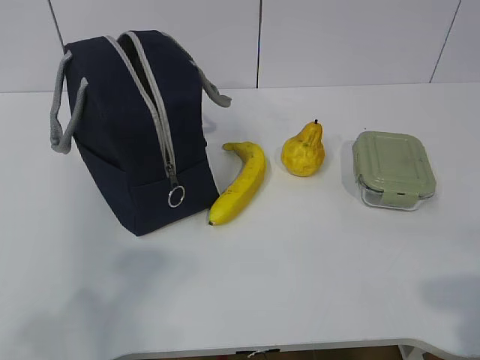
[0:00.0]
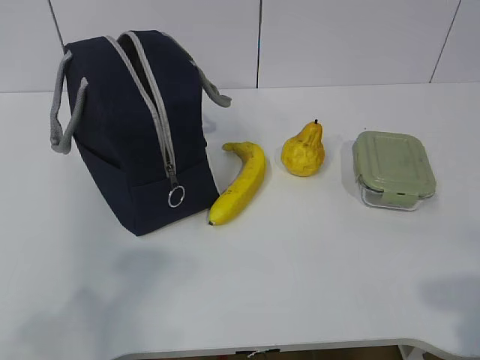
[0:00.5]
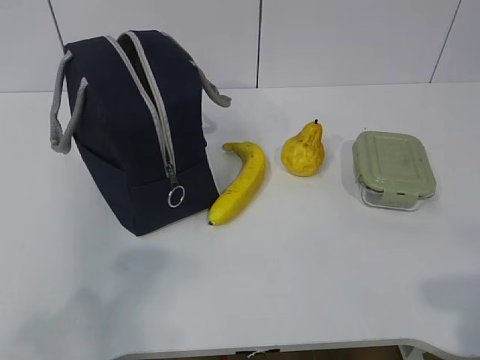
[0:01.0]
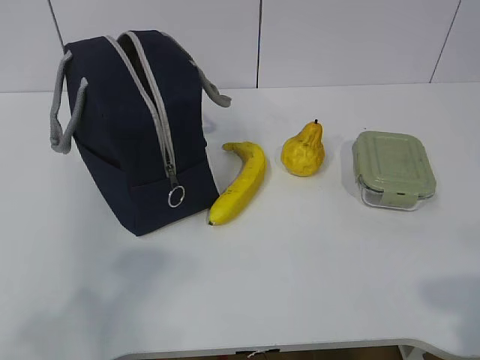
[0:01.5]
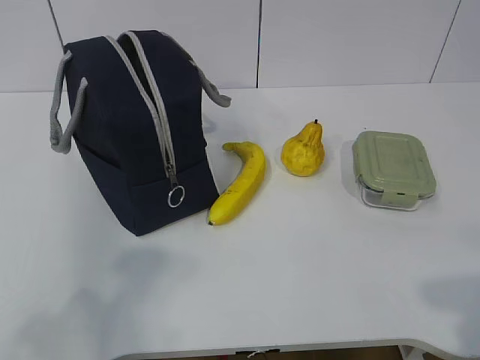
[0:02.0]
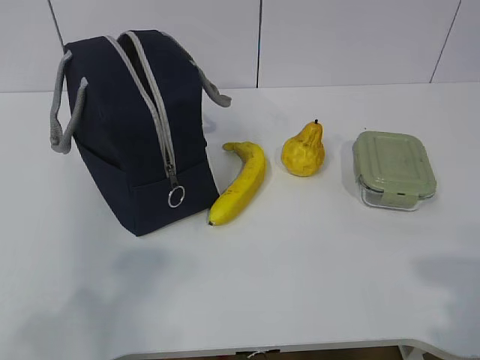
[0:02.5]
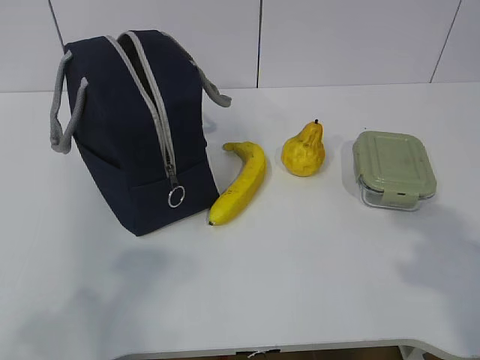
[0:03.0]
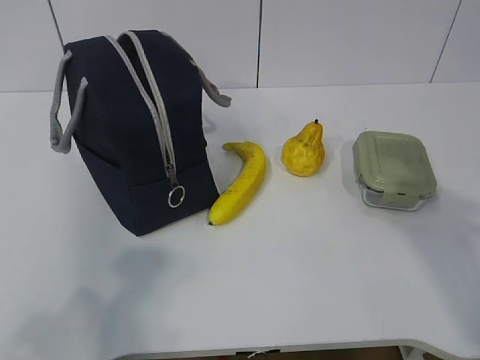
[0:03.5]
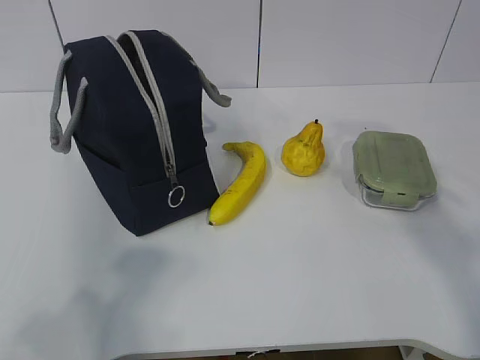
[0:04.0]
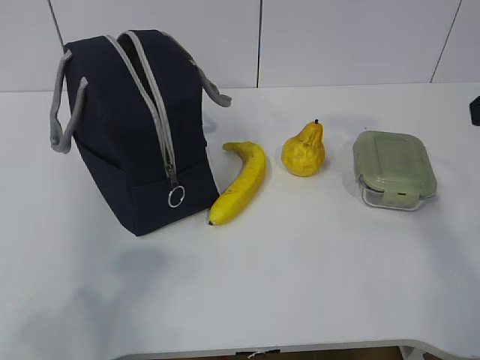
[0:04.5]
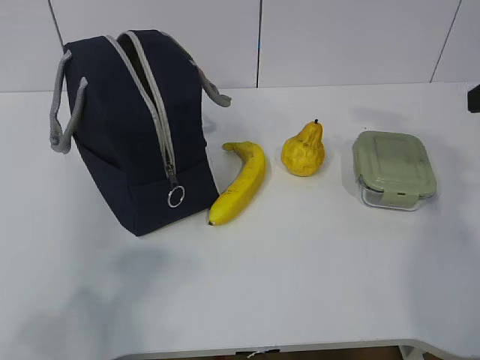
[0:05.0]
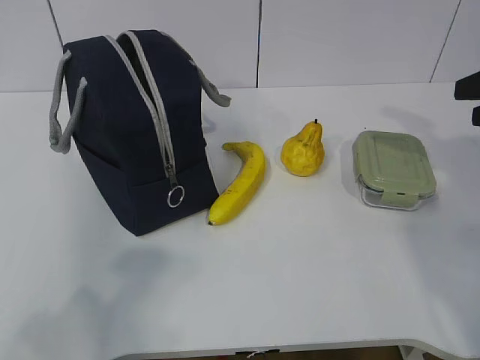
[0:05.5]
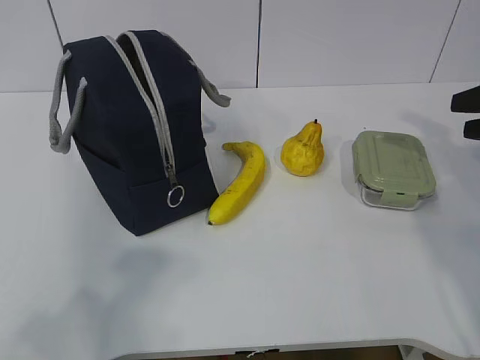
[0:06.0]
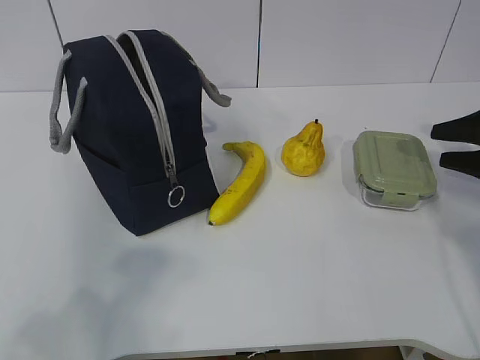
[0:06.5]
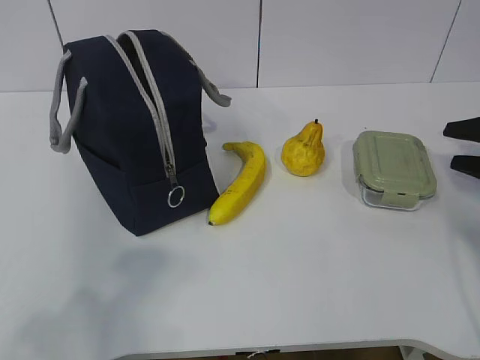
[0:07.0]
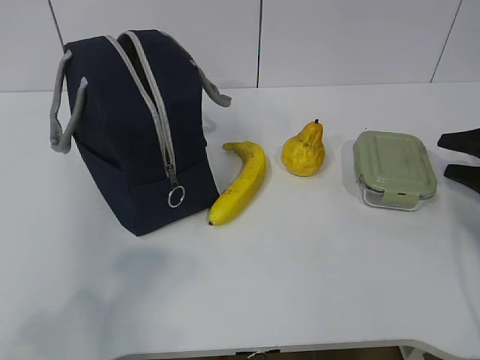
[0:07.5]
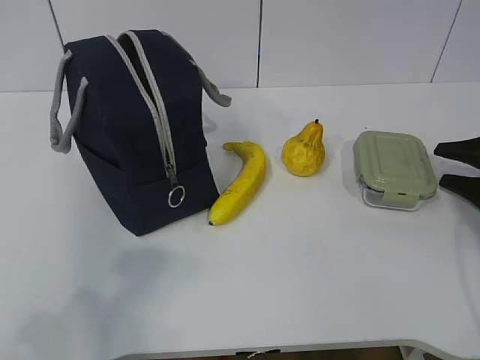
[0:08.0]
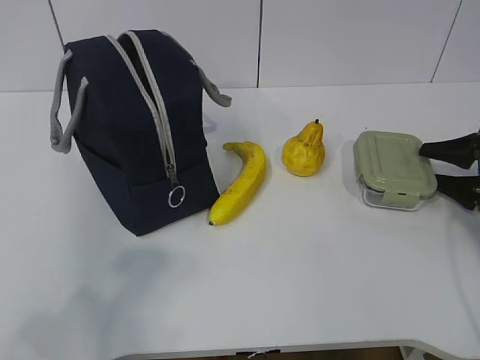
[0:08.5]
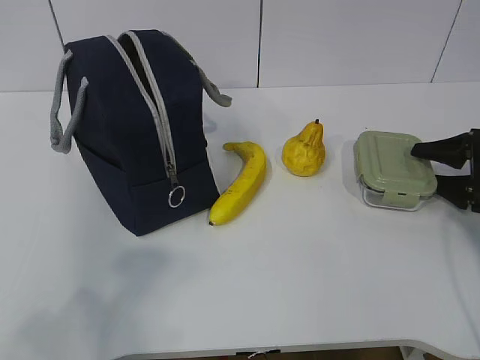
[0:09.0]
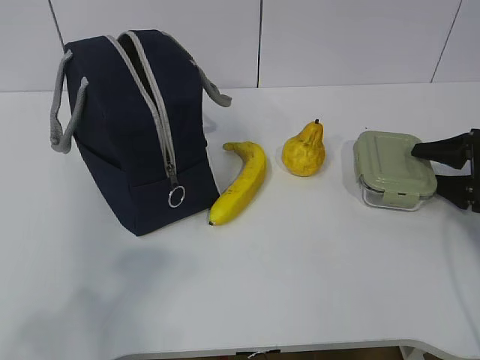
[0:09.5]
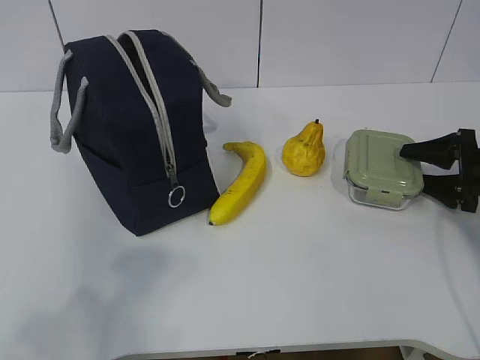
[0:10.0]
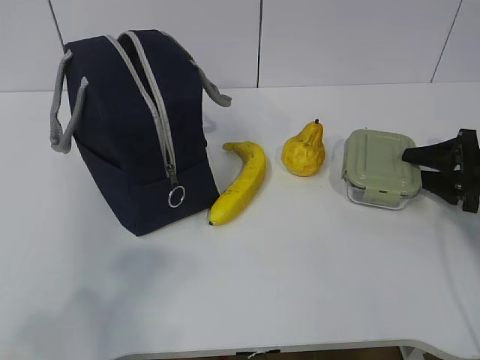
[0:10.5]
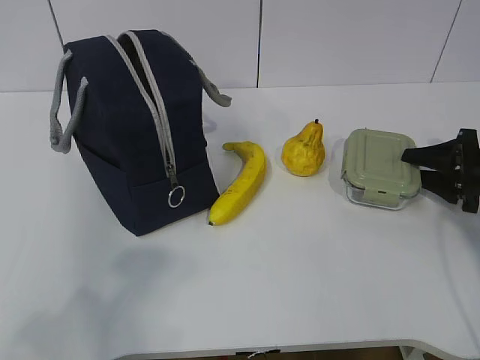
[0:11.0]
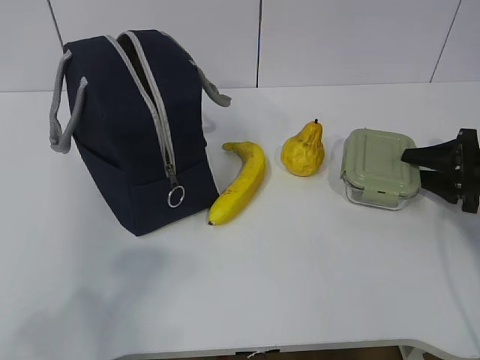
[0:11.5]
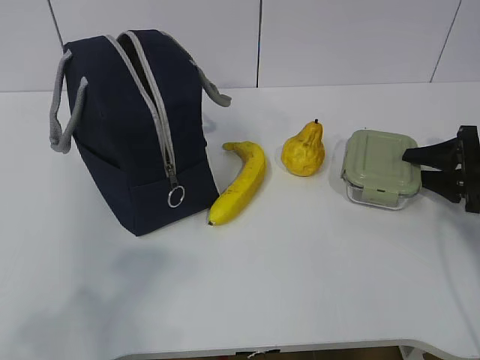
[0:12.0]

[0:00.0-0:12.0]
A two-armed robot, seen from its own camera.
Step, 0:00.0 to 0:09.5: Grab the lunch box with your right hand.
0:02.0 to 0:04.0: The right gripper heads forward and upward, covering approximately 20 cm.
0:04.0 to 0:06.0: The right gripper moves forward, downward and to the right, about 25 cm.
0:06.0 to 0:08.0: The right gripper moves downward, approximately 15 cm.
0:08.0 to 0:10.0: The grippers move only a little.
0:10.0 to 0:12.0: The right gripper closes.

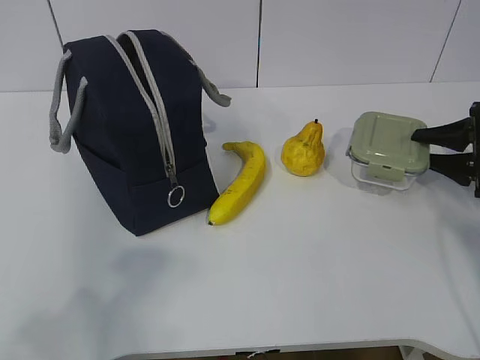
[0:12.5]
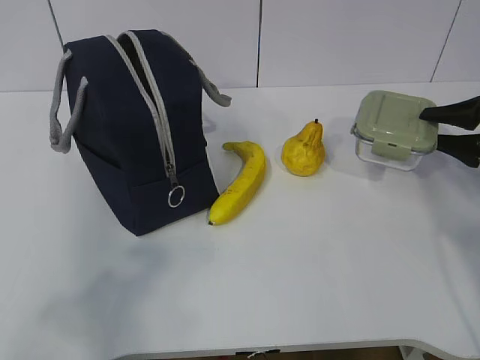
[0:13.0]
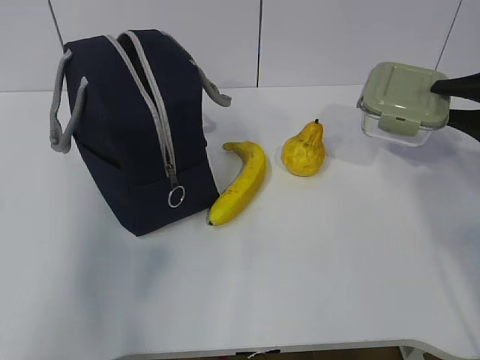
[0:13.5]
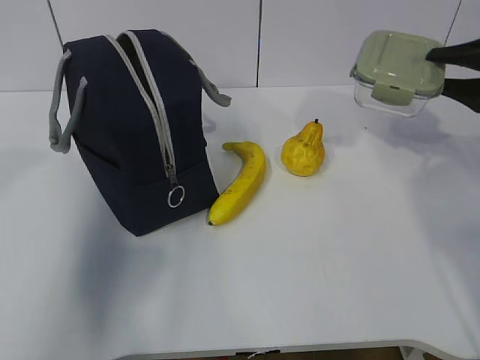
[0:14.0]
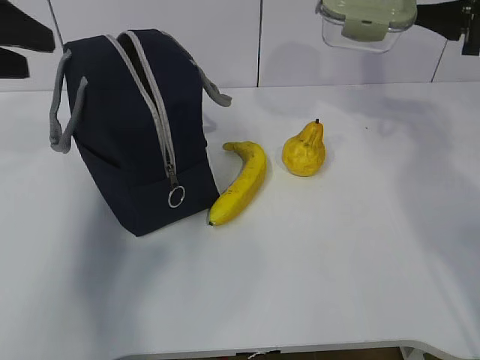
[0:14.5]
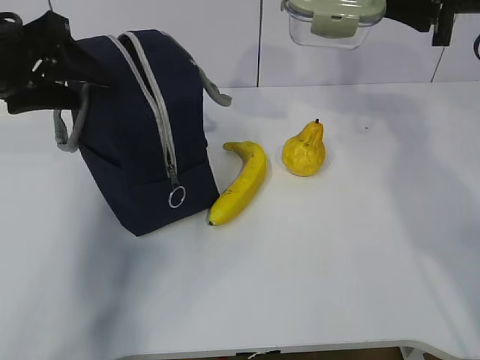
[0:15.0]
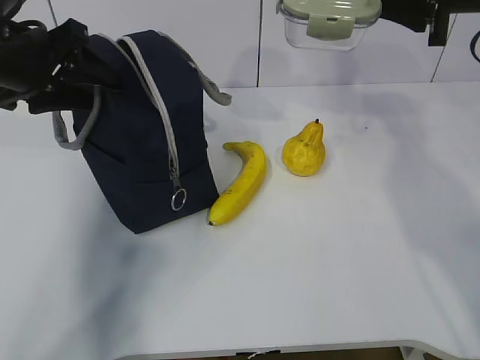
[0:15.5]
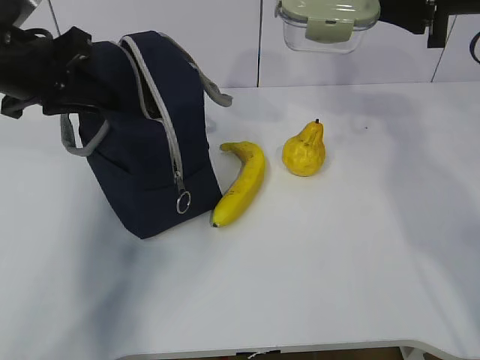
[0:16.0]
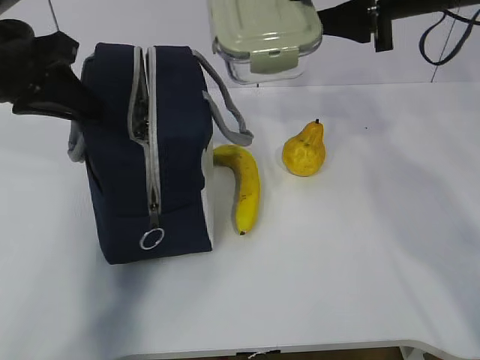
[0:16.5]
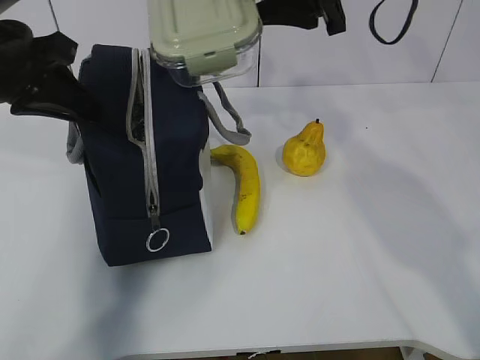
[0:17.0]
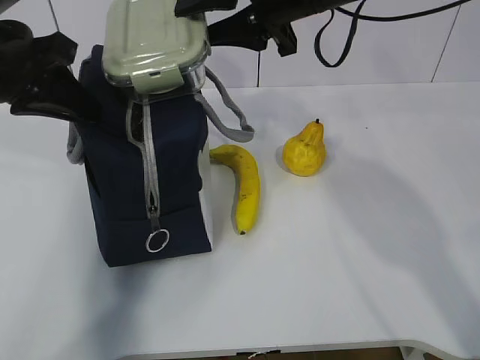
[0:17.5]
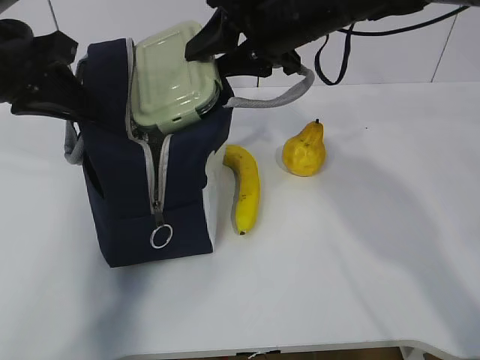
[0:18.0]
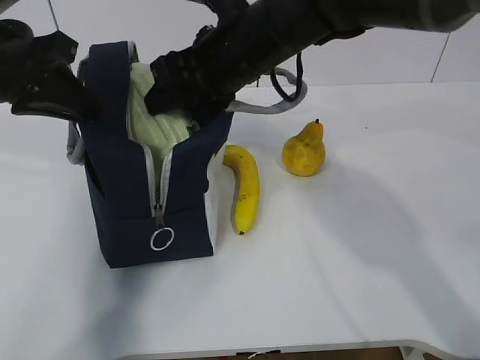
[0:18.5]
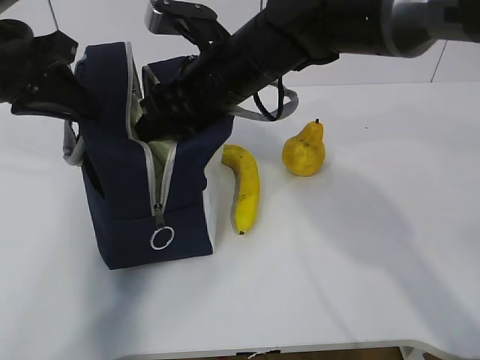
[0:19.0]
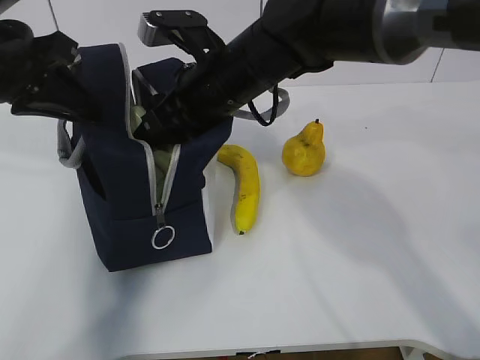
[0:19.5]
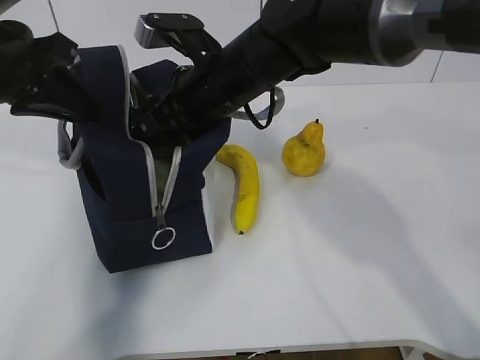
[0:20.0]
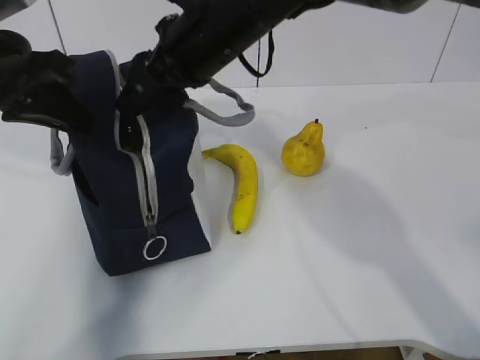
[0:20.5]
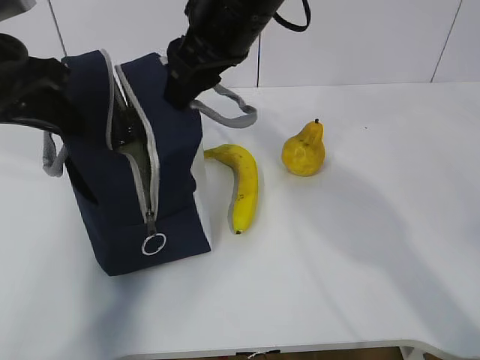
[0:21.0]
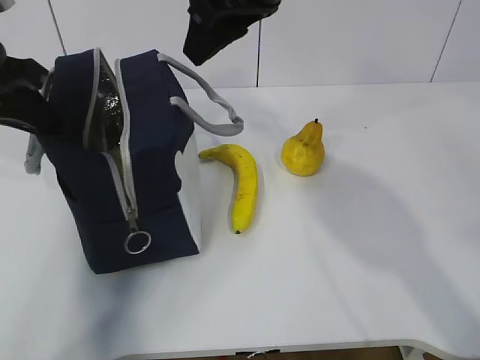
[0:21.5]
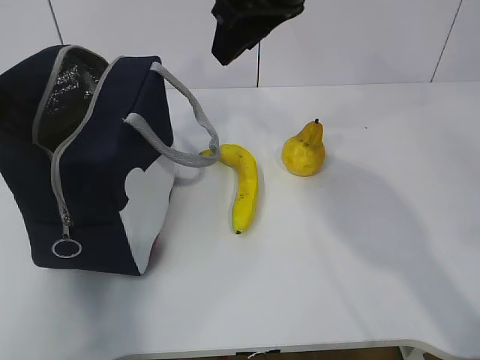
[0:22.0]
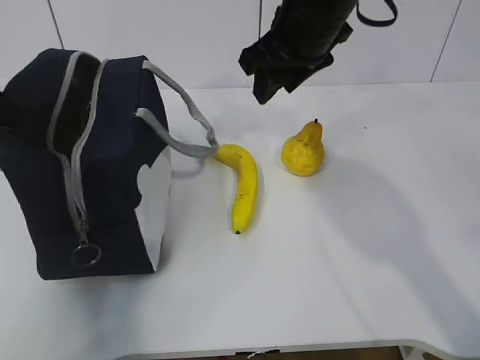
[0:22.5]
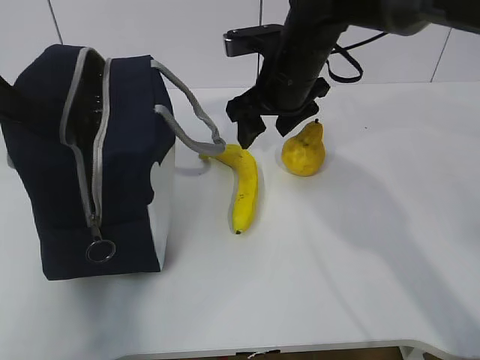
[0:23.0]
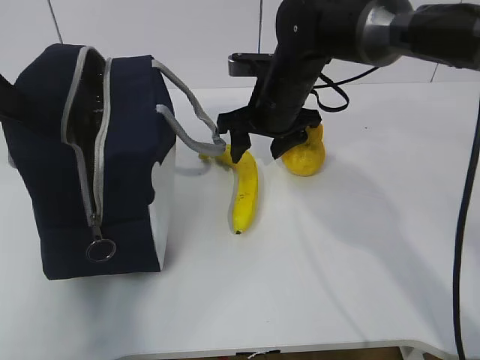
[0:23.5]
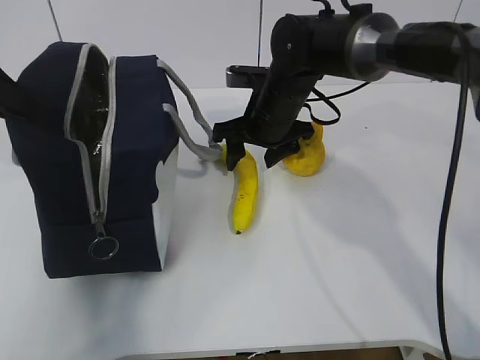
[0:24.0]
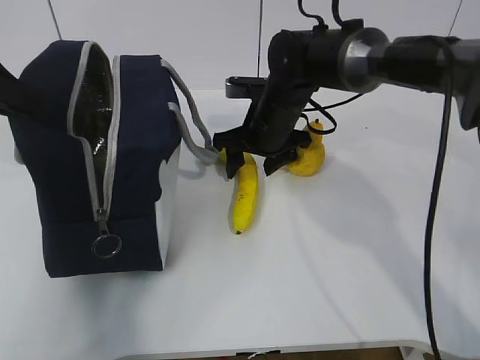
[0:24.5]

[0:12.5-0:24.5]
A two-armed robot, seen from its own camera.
Step, 0:14.5 to 0:16.5: Place it into the bag with your right hand.
Step, 0:17.0 to 0:21.0: Grab the banana with your right hand.
0:12.5 to 0:14.5: The left gripper moves forward, about 30 cm, while the right gripper is displaced upward by about 20 cm.
0:14.5 to 0:16.5: The right gripper goes roughly 10 cm to the left. Meanwhile the left gripper closes.
0:16.5 to 0:18.5: The right gripper moves to the left, approximately 15 cm.
0:20.5 to 0:22.5: The right gripper travels to the right by about 10 cm; the left gripper goes about 5 cm to the left.
0:22.5 to 0:24.5: The right gripper moves downward, roughly 15 cm.

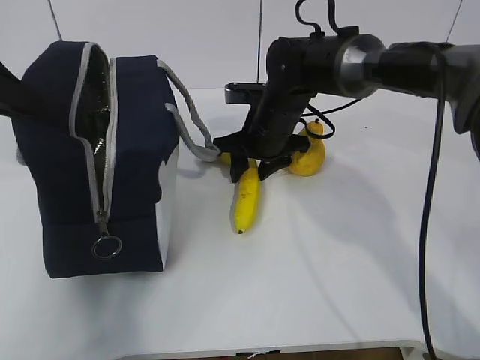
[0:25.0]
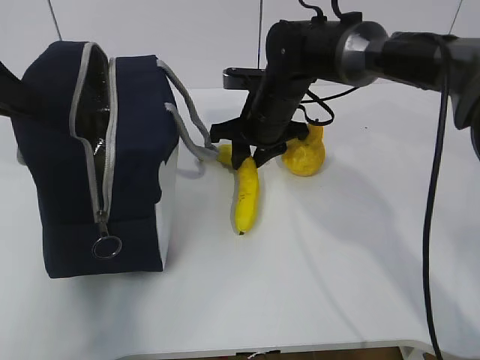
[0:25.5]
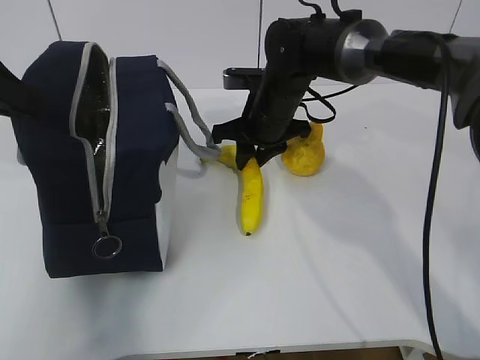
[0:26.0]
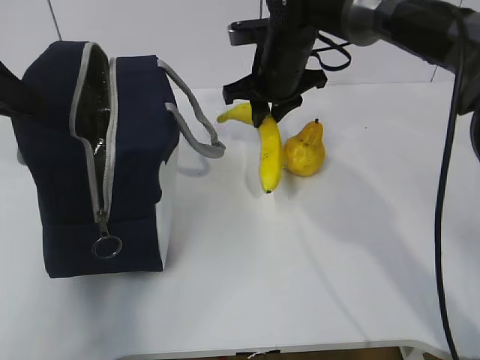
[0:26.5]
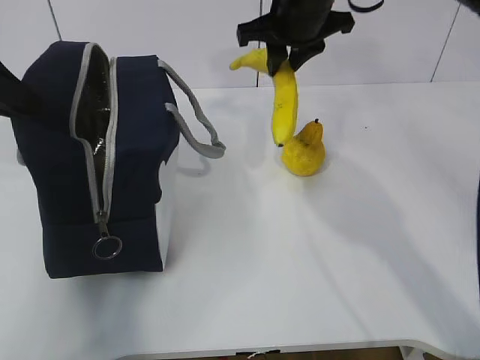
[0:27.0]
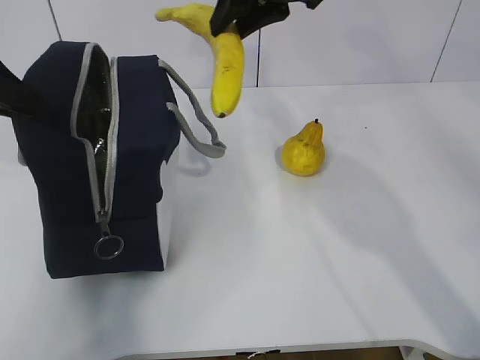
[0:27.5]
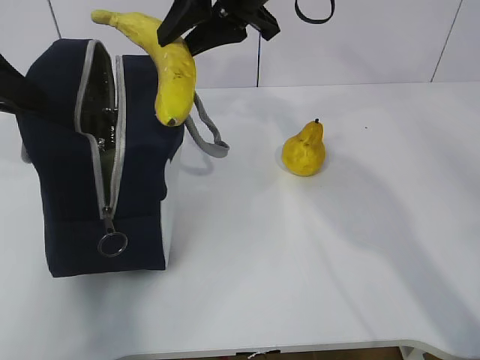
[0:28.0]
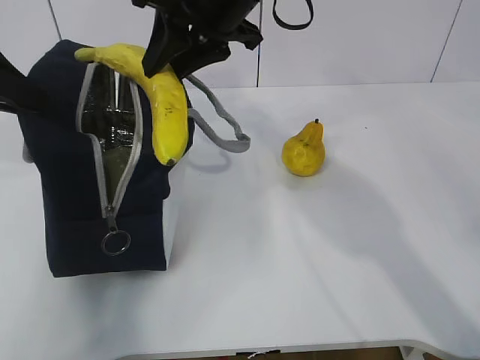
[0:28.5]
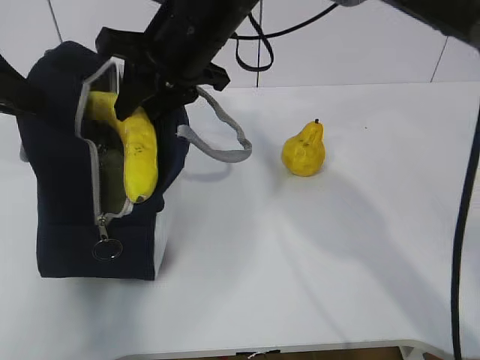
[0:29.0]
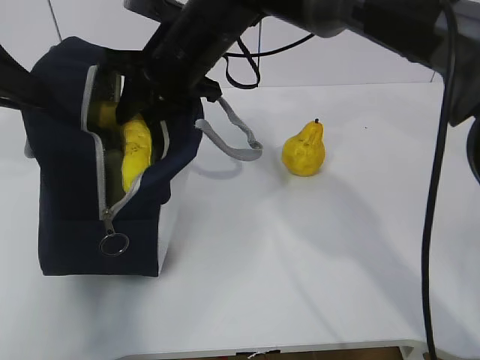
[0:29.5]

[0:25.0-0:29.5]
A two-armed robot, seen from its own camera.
0:25.0 to 0:27.0: The right gripper goes about 15 cm upward.
0:27.0 to 0:29.5: The right gripper is displaced to the left and backward by roughly 15 cm.
